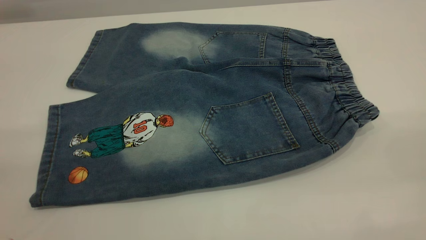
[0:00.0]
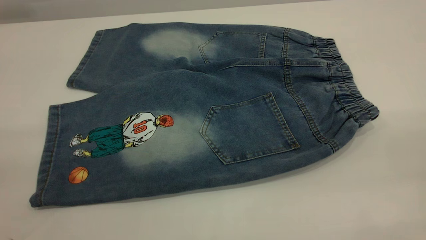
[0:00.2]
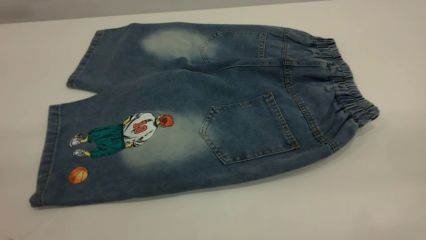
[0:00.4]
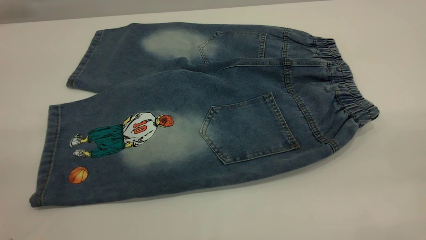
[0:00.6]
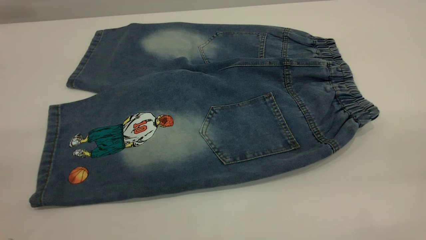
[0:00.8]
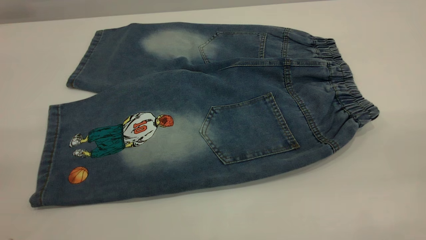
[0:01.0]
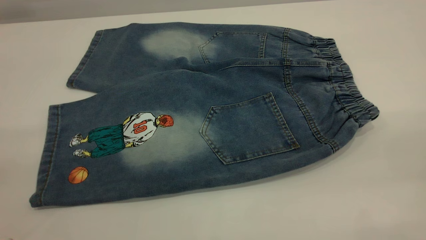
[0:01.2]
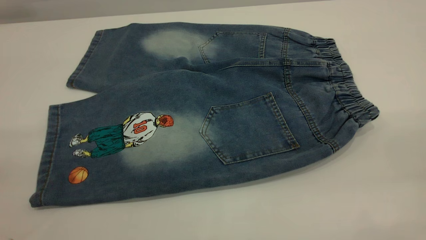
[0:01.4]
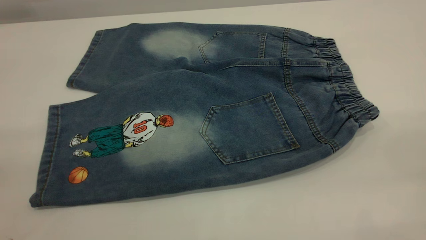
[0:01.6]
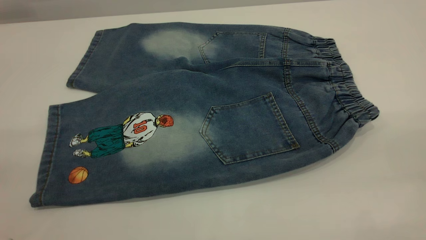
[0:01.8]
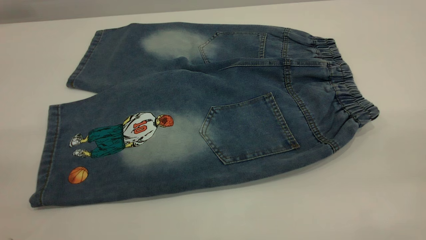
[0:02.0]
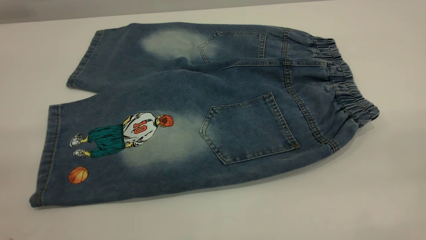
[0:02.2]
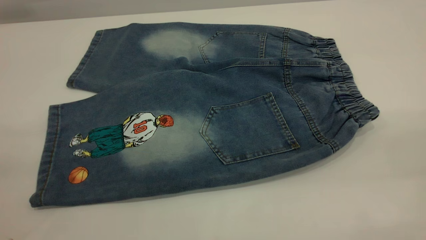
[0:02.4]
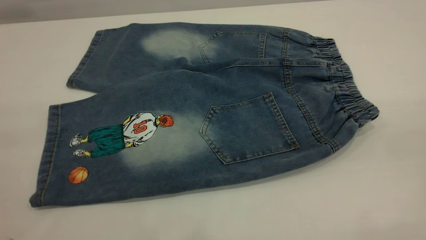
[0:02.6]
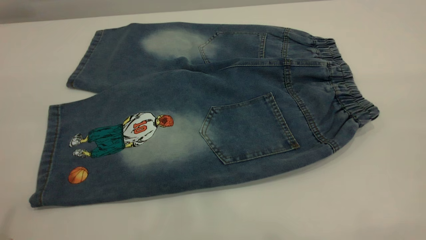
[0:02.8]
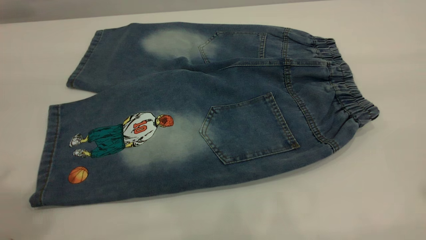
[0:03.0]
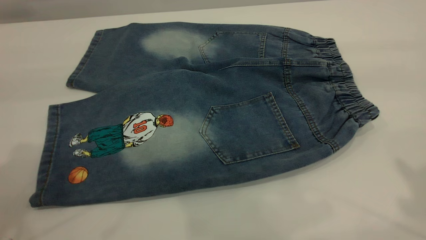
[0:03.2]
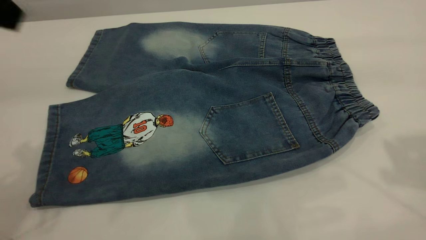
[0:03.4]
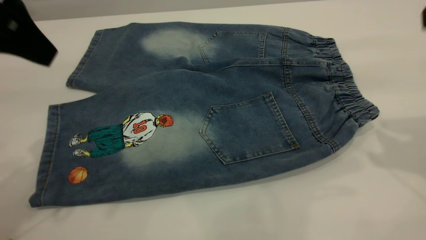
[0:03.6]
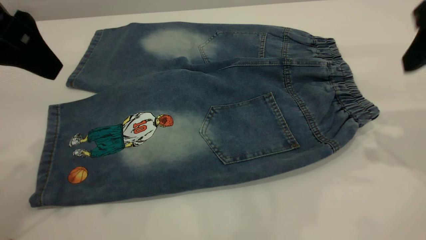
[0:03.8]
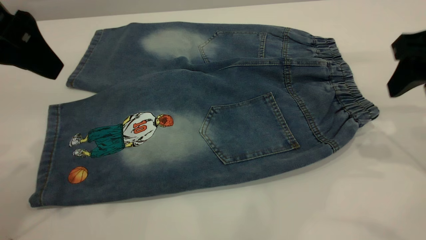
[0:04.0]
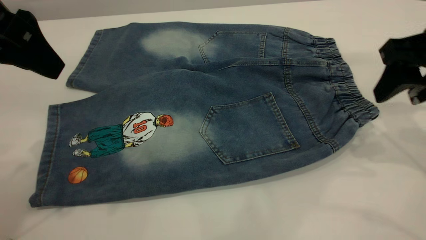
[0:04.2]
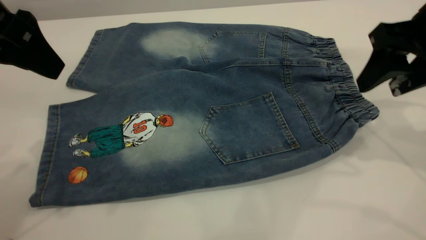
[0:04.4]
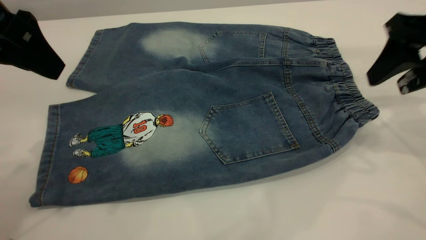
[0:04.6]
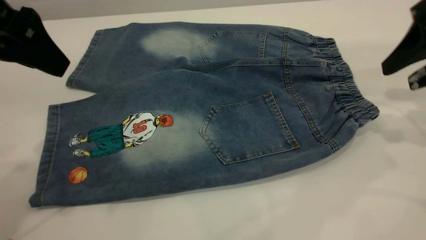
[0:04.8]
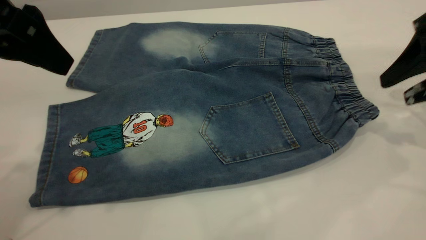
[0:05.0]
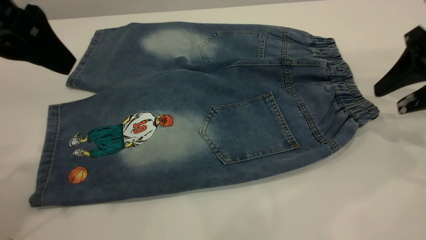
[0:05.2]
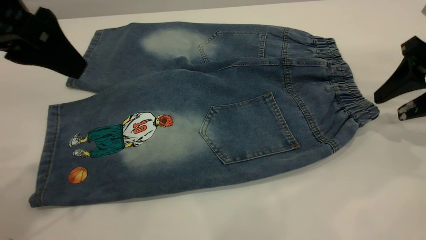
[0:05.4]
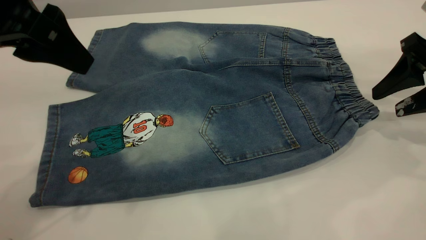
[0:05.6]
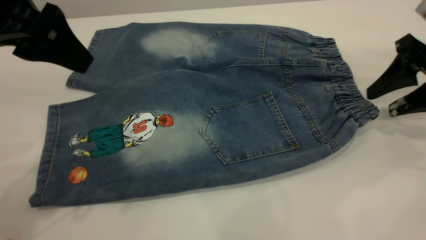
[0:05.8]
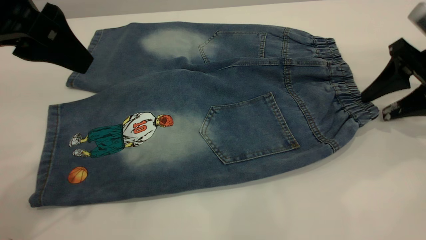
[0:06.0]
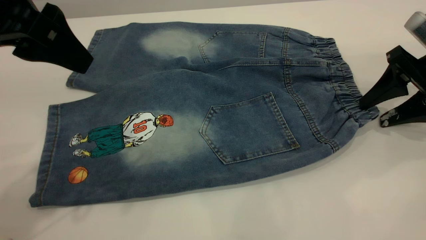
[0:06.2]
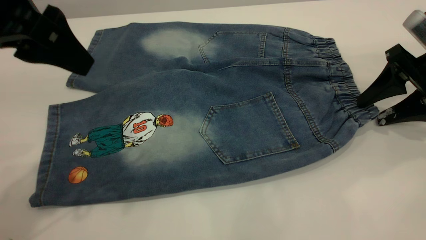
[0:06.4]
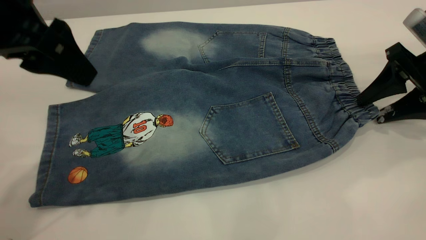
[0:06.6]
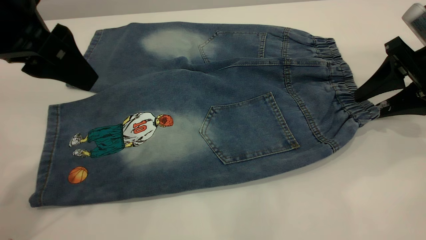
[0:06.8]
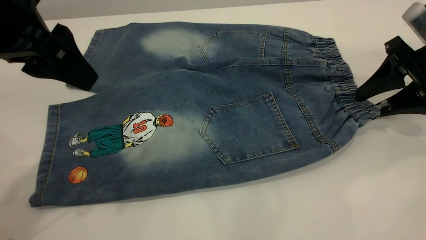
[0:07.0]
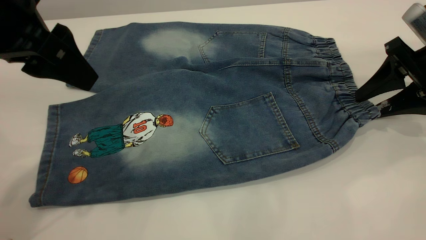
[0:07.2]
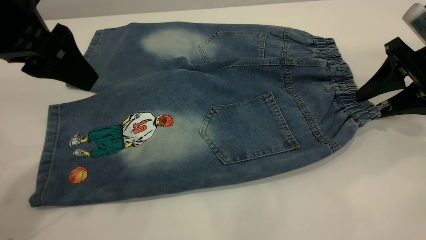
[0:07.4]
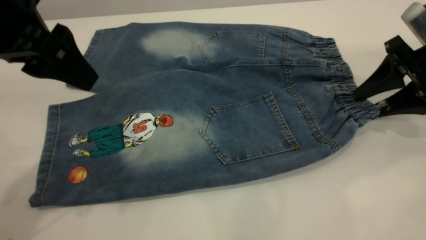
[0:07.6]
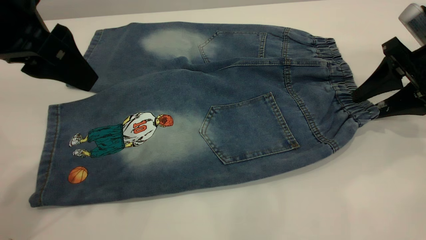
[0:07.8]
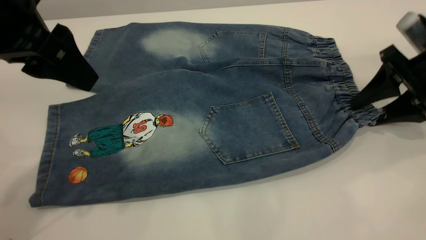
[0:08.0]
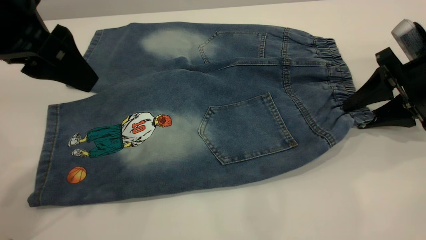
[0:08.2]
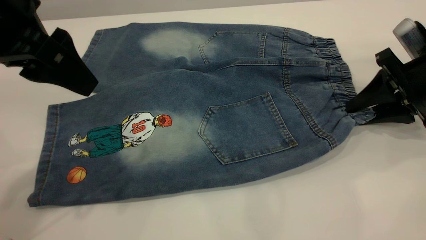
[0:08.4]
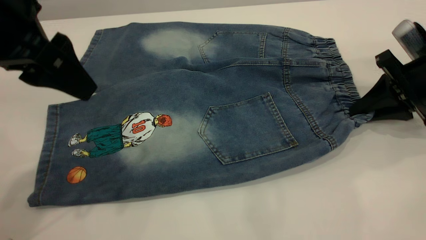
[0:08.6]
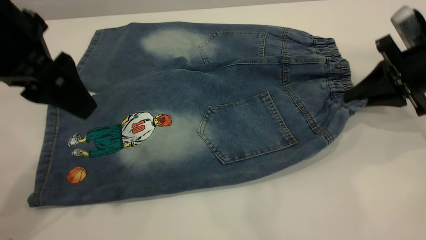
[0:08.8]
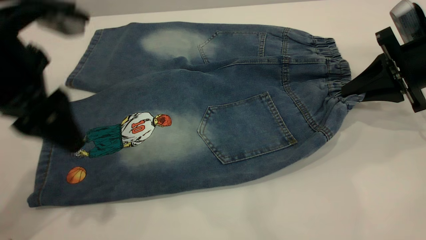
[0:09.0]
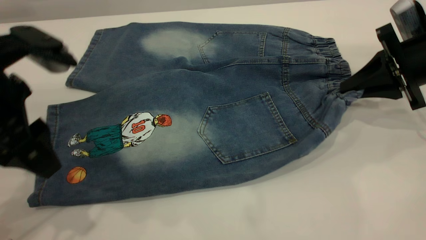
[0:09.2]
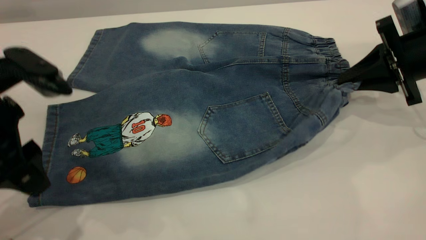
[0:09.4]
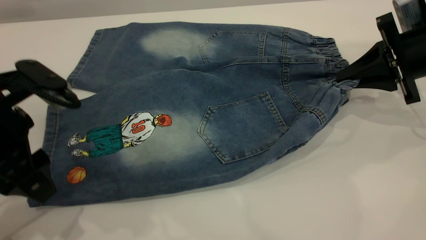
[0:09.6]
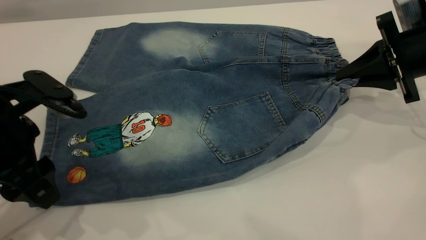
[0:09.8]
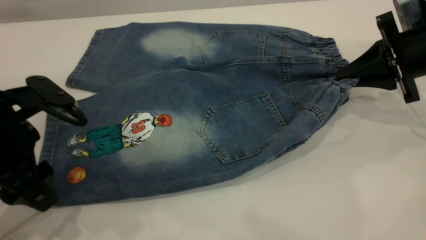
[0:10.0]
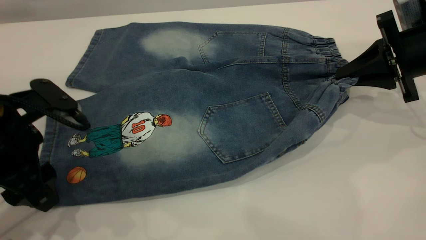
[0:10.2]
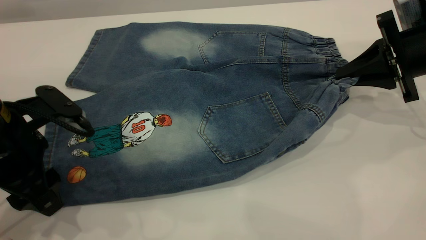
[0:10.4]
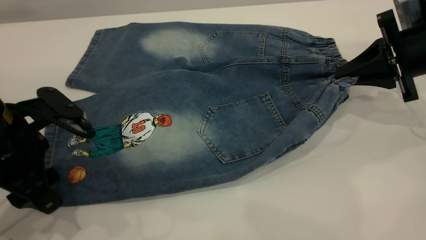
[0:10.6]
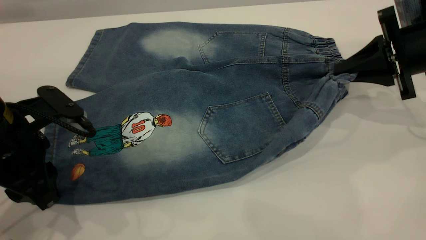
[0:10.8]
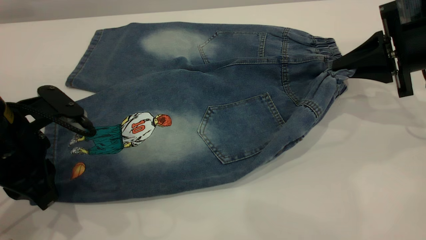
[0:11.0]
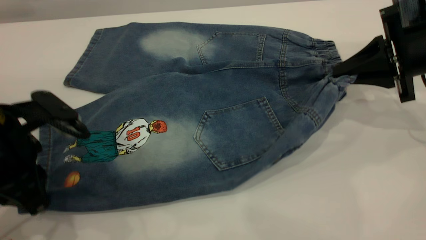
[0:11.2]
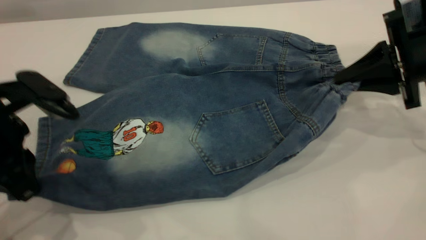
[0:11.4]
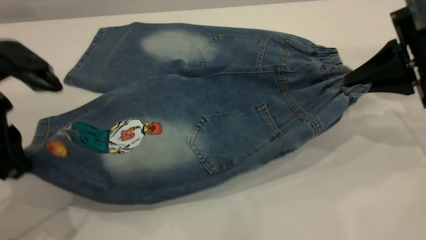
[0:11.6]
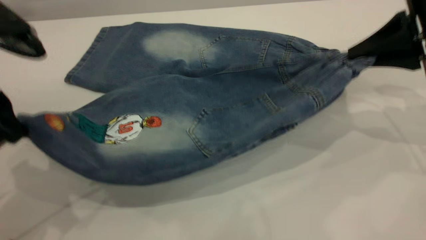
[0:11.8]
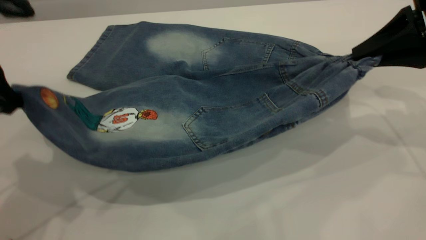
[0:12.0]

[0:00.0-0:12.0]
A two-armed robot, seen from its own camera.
0:00.0 to 0:01.6: Neither gripper changes place.
0:03.0 to 0:04.4: The right gripper moves downward and forward, some 25 cm. The left gripper shifts roughly 15 cm downward and forward.
0:04.4 to 0:06.0: The right gripper moves downward and to the right, about 10 cm.
0:06.0 to 0:07.6: The grippers make only small movements.
0:07.6 to 0:09.0: The right gripper closes its fingers.
0:09.0 to 0:10.4: The left gripper shifts roughly 10 cm downward.
0:10.4 to 0:12.0: The right gripper is displaced upward by roughly 5 cm. Meanwhile the left gripper shifts some 15 cm upward, and closes.

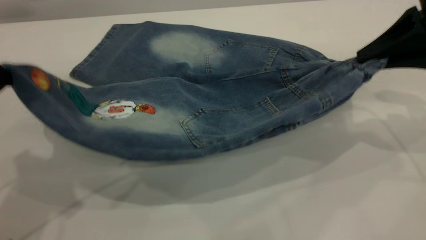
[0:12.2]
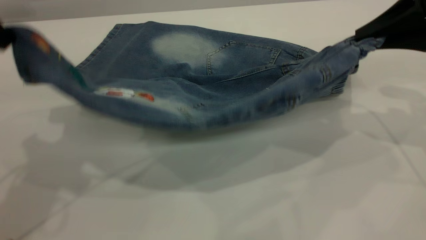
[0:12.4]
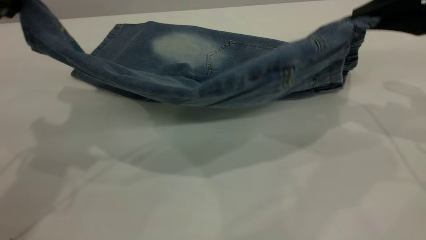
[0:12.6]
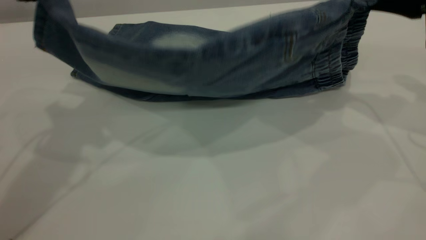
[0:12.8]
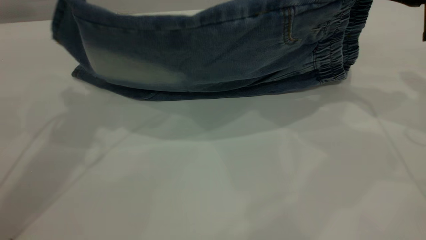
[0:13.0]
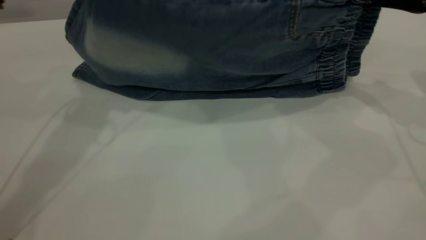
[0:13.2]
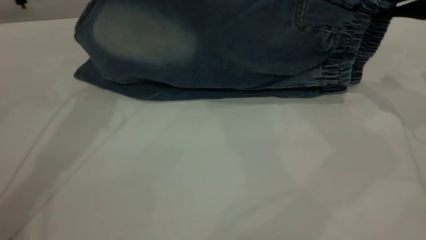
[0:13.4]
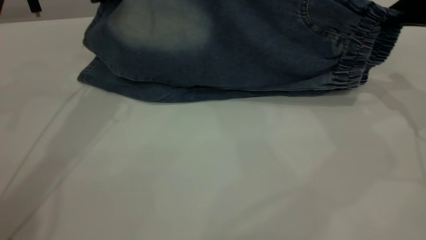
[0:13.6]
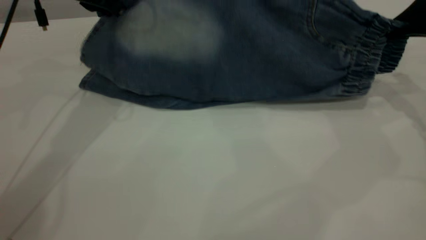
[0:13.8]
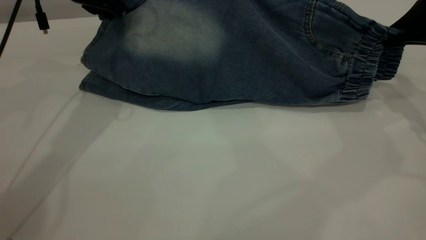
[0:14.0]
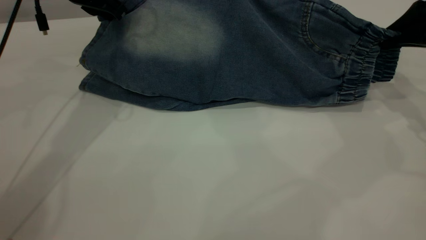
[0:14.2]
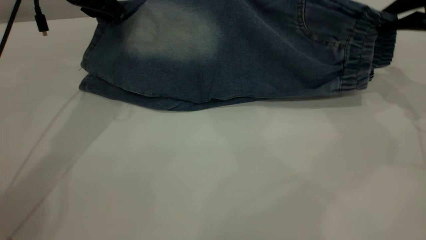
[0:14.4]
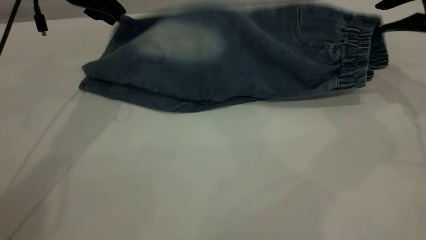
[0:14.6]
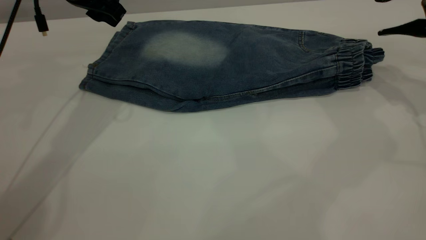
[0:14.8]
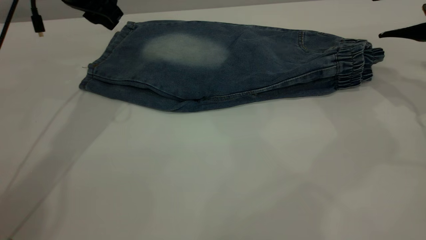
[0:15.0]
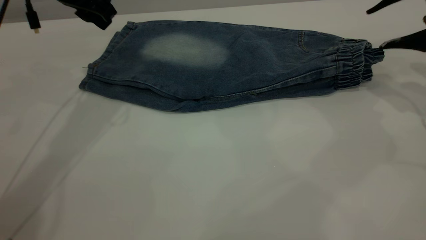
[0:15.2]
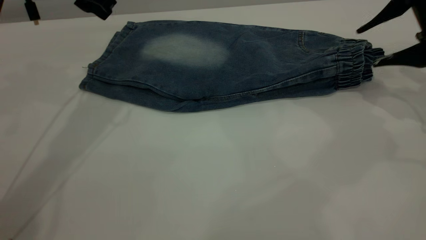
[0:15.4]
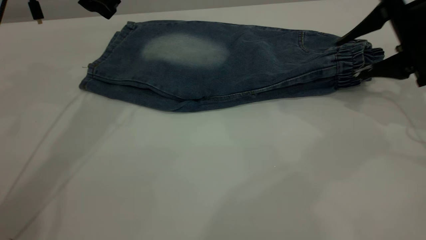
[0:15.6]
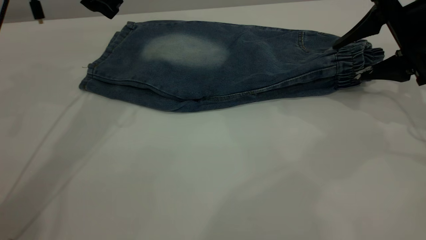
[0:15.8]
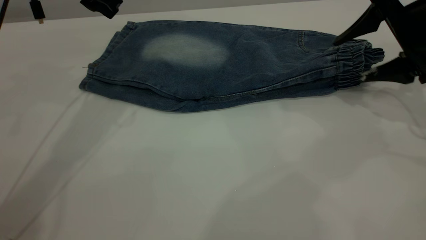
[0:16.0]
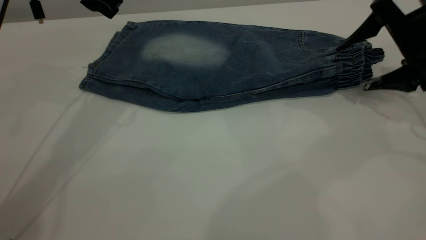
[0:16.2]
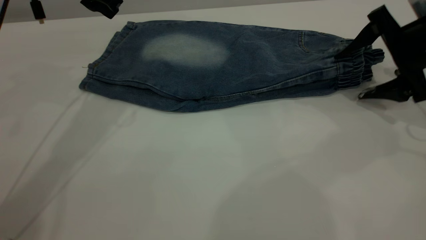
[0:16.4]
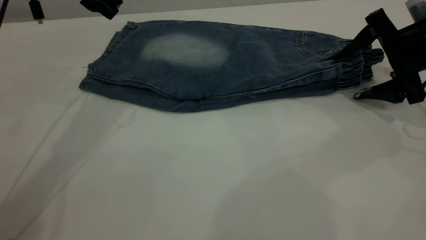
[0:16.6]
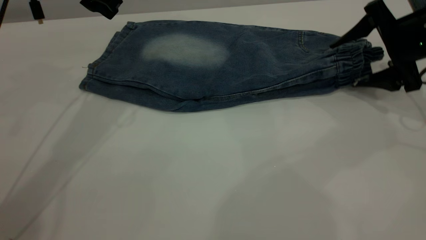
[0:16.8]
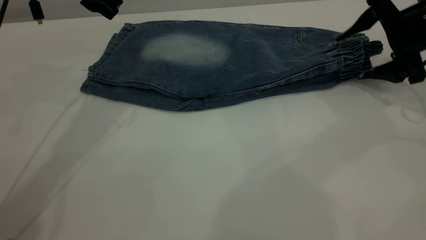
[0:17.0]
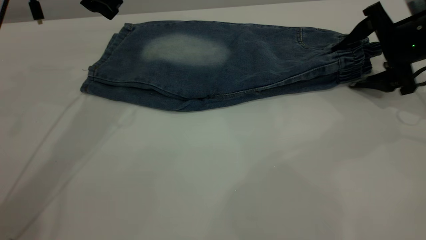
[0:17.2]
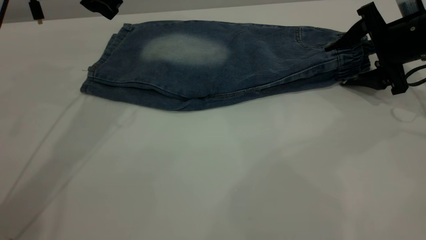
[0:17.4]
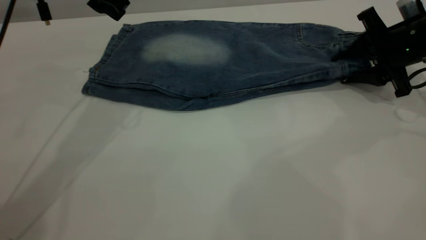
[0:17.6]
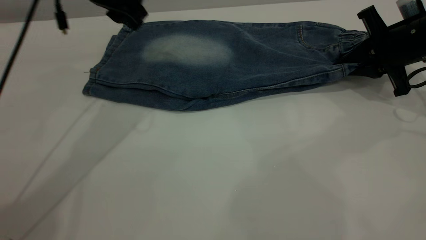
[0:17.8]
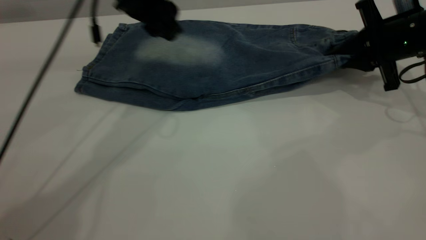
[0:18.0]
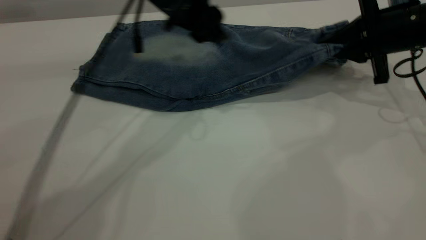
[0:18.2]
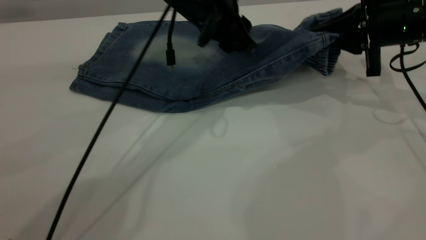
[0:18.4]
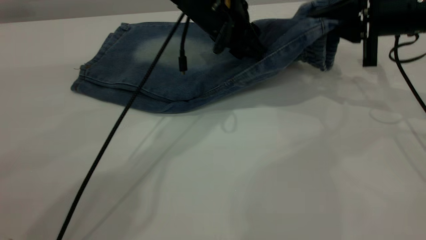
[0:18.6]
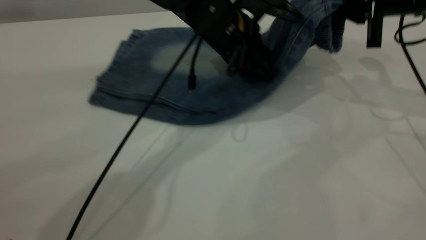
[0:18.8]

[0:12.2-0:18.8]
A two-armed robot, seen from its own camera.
Step, 0:12.2 to 0:14.8: Fold the bottom of the pants upward.
0:12.2 to 0:13.8: The right gripper changes place by some 5 cm; the left gripper heads forward, covering about 20 cm.
0:13.8 to 0:15.4: The left gripper opens; the right gripper opens.
0:15.4 to 0:17.2: The right gripper is displaced downward by some 5 cm.
0:17.2 to 0:18.8: The left gripper goes approximately 25 cm to the right and downward. Meanwhile the right gripper travels upward by approximately 10 cm, and closes.
